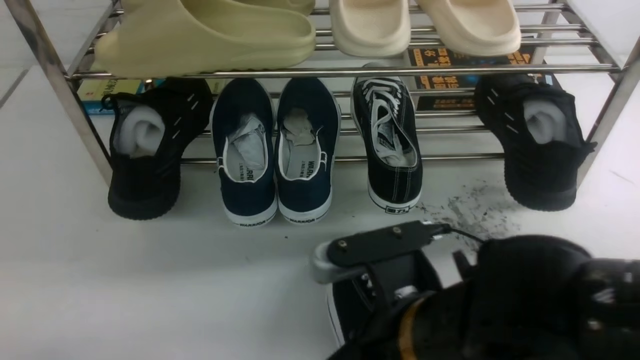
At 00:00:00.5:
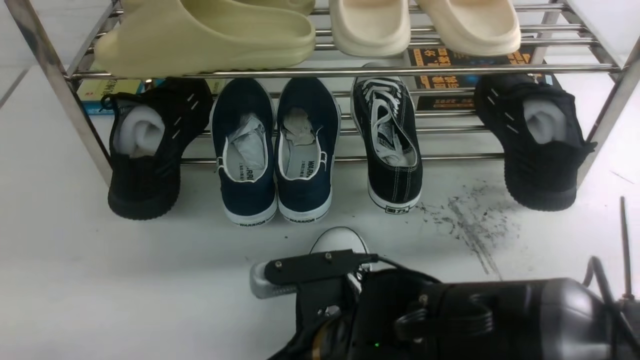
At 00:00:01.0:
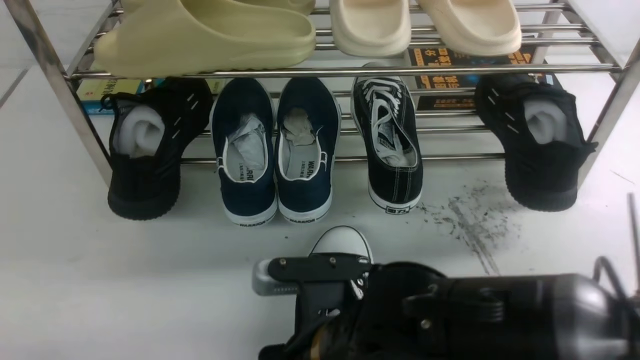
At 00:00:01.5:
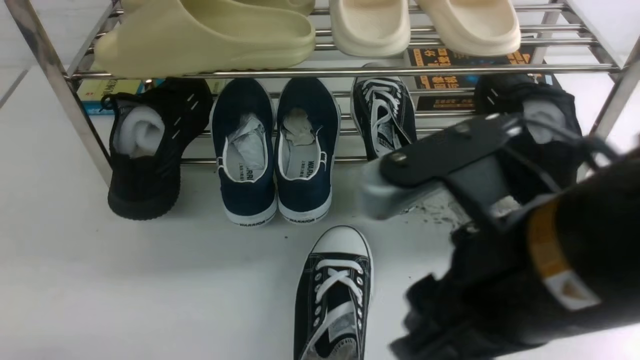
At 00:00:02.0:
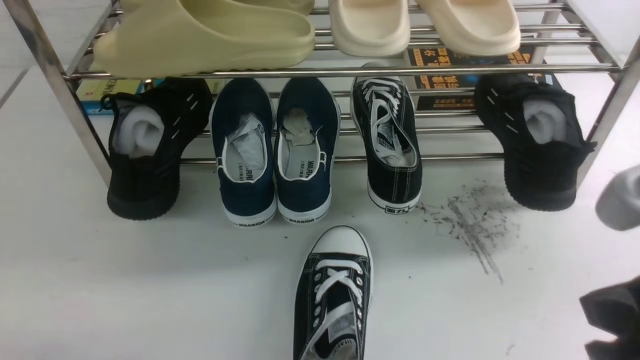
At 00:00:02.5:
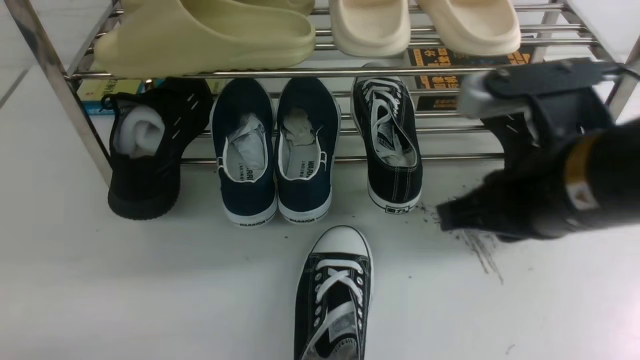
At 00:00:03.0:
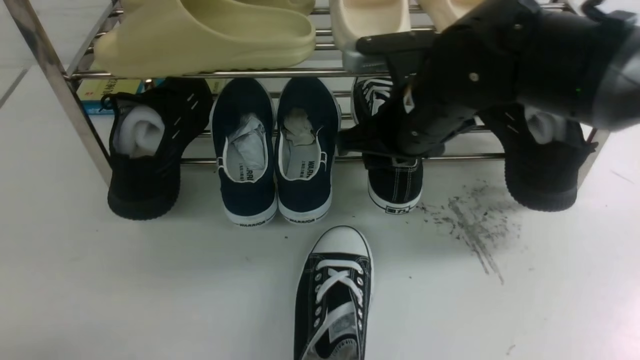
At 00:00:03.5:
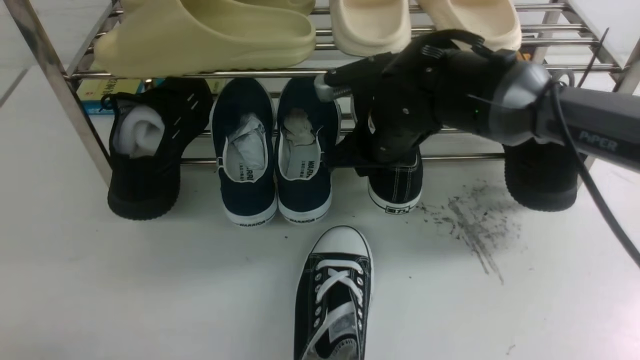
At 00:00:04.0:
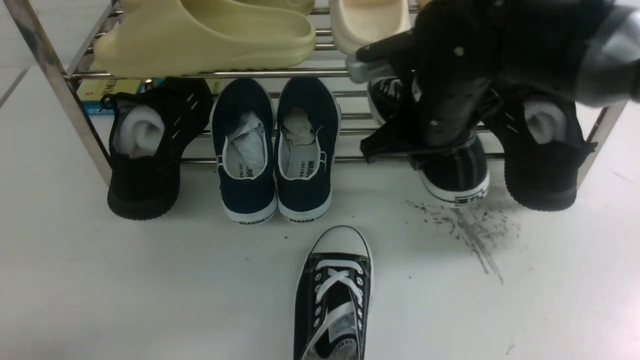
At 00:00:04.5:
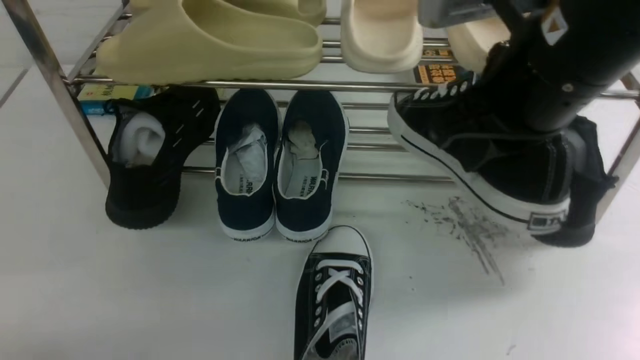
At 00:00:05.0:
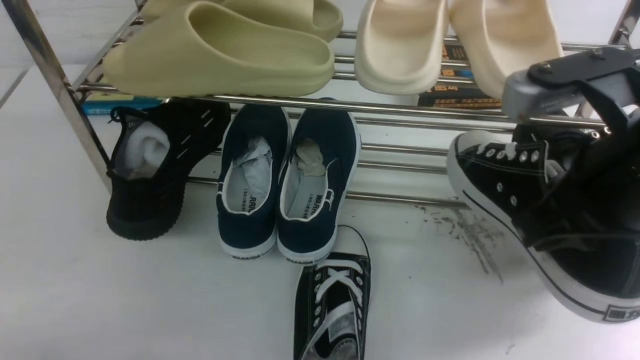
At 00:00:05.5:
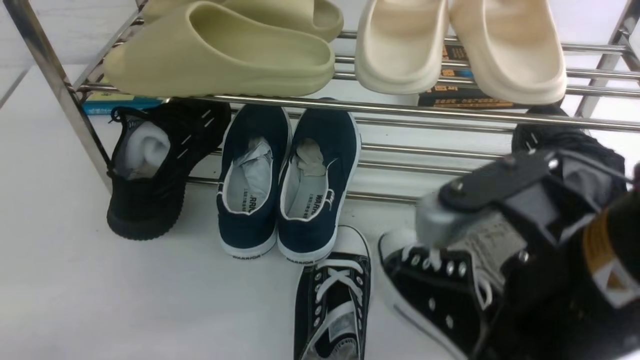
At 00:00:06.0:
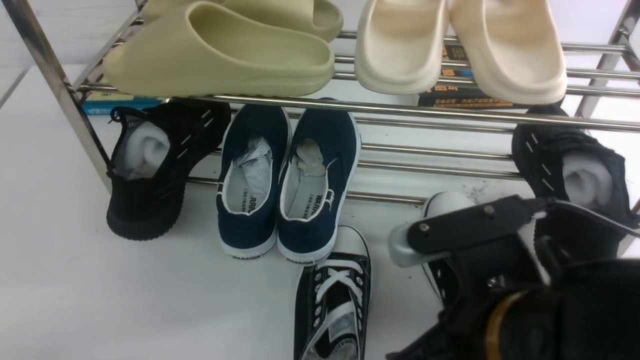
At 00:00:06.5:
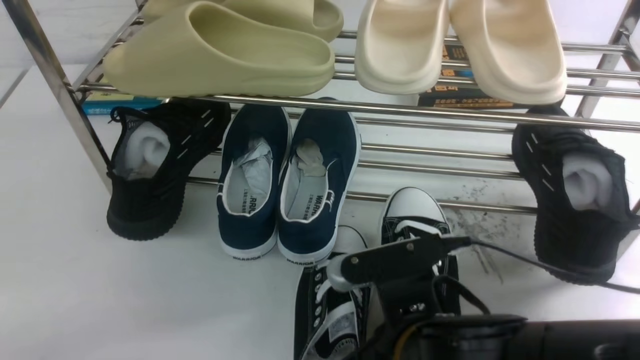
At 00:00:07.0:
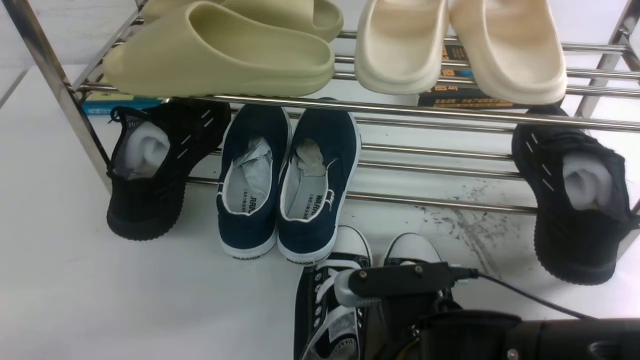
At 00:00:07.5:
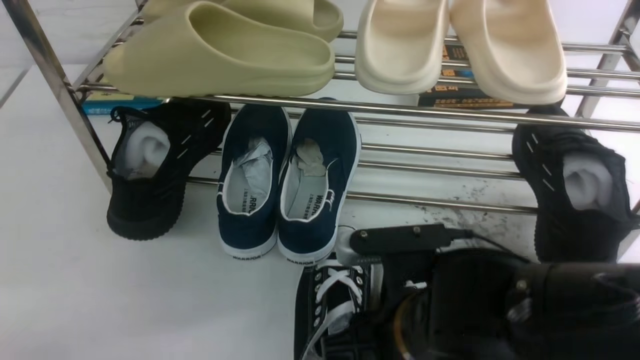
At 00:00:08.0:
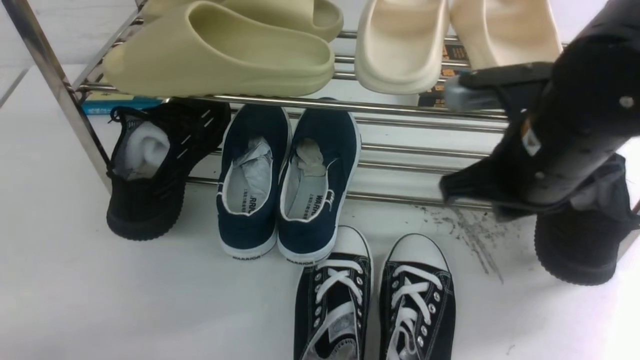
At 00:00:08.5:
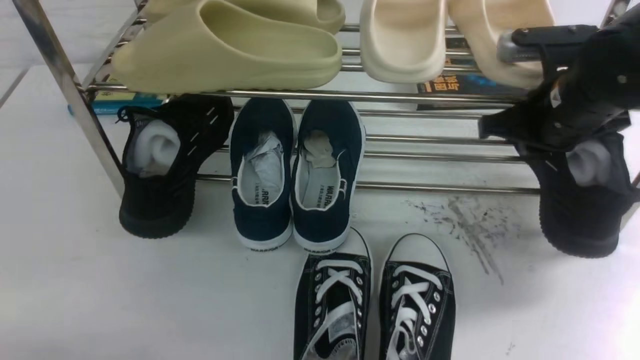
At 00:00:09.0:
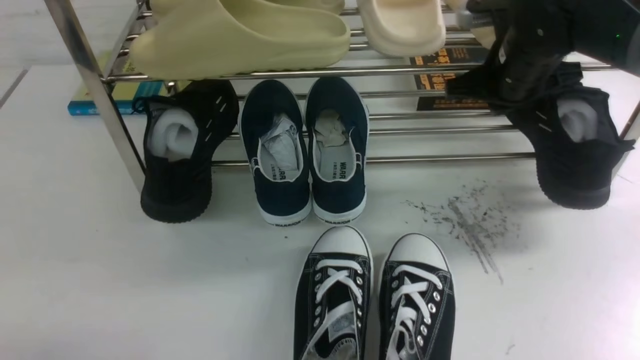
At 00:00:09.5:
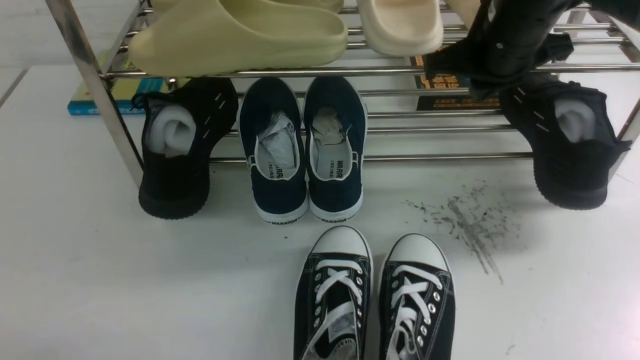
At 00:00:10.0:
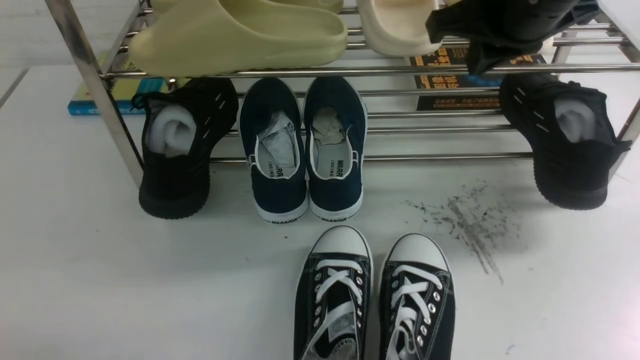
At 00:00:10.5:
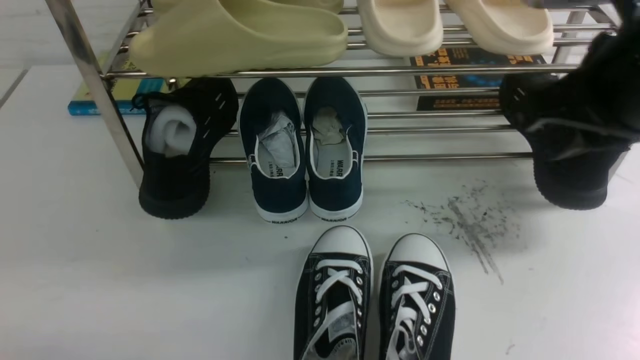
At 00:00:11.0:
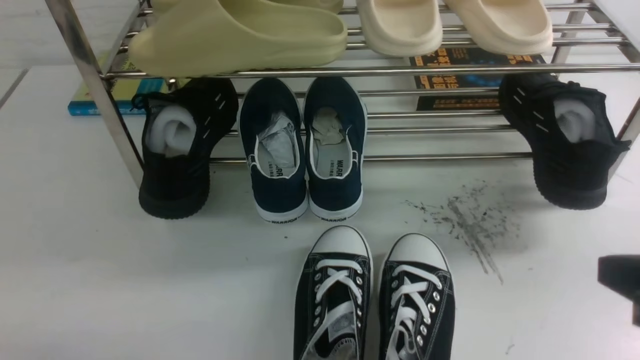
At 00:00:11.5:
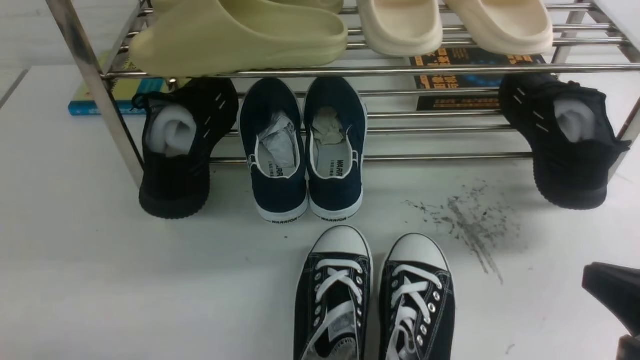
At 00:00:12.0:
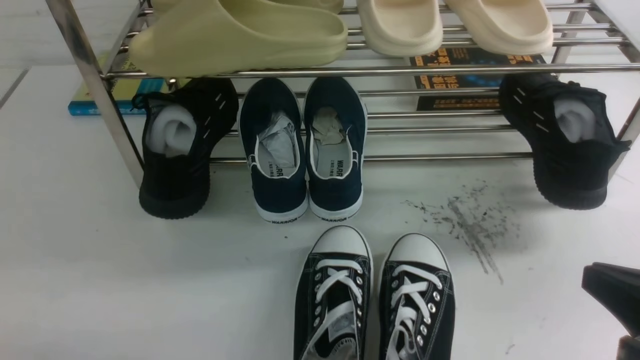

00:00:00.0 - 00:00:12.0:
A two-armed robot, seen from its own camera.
Step, 00:00:01.5 - 00:00:04.0: use the right arm to clamp a shoe on the right side of the shoe rack.
Step, 00:00:04.5 - 00:00:07.5: use the right arm to take out the clamped shoe from the shoe rack and put it down.
00:00:00.0 - 00:00:02.0: The right gripper shifts about 15 cm to the right and upward, and opens and closes again.
00:00:02.0 - 00:00:04.0: The right gripper moves forward, roughly 25 cm, and opens and closes again.
00:00:04.0 - 00:00:06.0: The right gripper moves backward, some 20 cm.
00:00:06.0 - 00:00:08.0: The right gripper shifts approximately 15 cm forward and to the right, and opens, then closes again.
00:00:08.0 - 00:00:10.0: The right gripper is displaced upward and forward by about 10 cm.
00:00:10.0 - 00:00:12.0: The right gripper travels backward, downward and to the right by about 30 cm.

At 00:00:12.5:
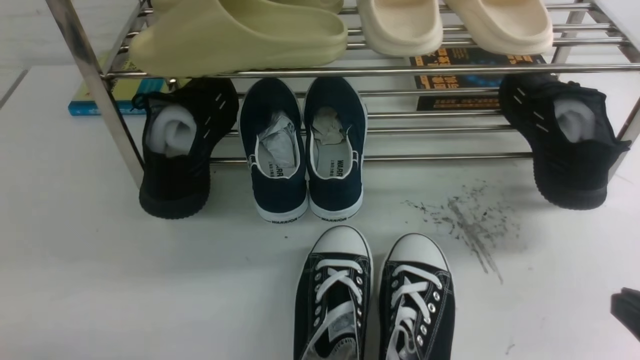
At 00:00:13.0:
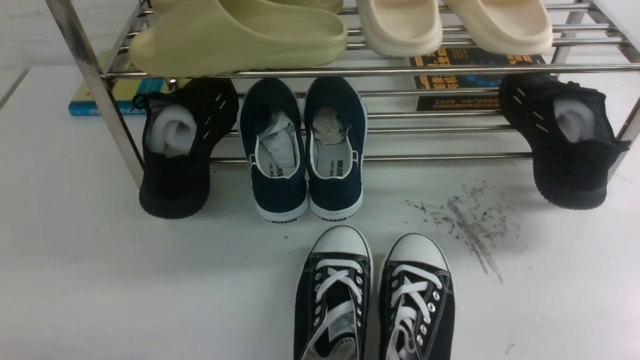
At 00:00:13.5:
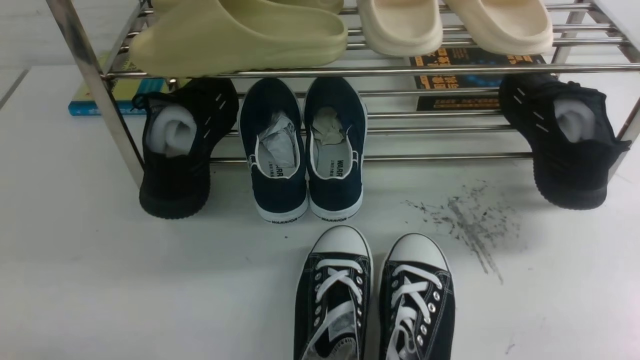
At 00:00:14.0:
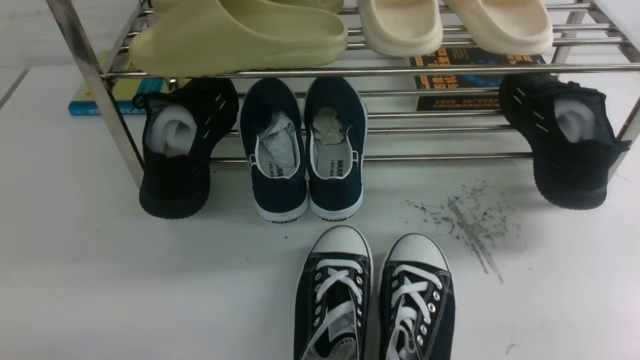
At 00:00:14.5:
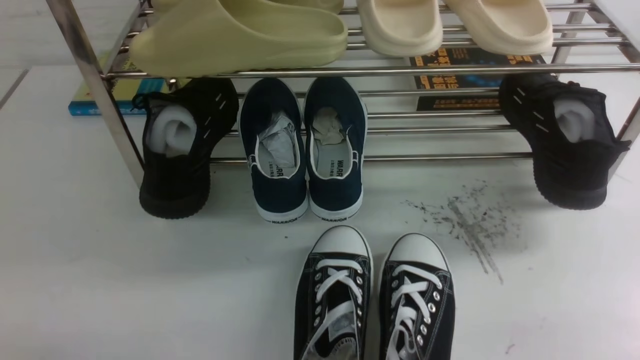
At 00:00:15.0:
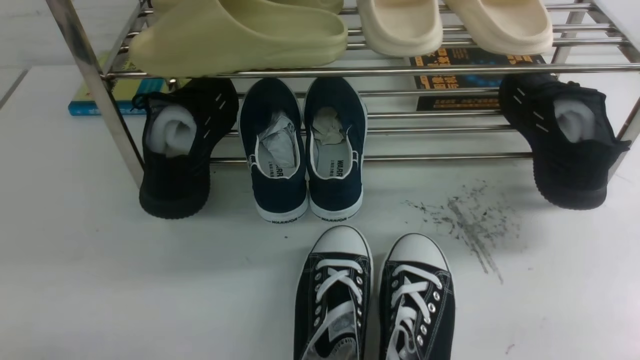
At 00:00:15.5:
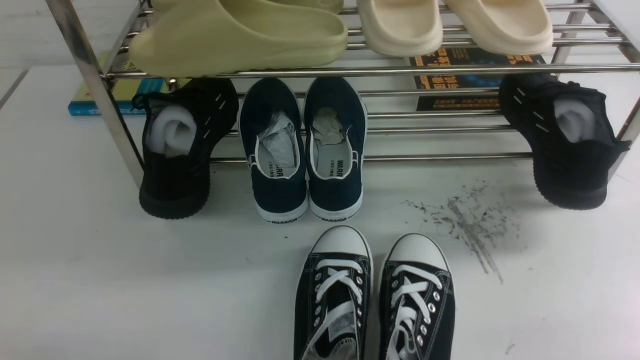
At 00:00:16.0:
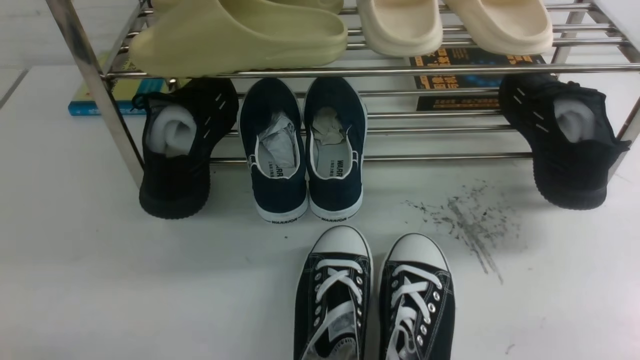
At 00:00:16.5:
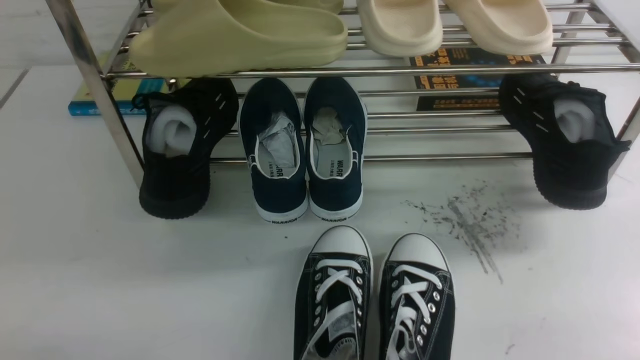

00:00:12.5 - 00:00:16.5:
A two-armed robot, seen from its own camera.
00:00:14.5 - 00:00:16.5: Both grippers stay put.
